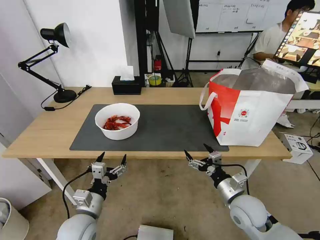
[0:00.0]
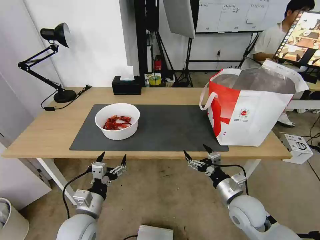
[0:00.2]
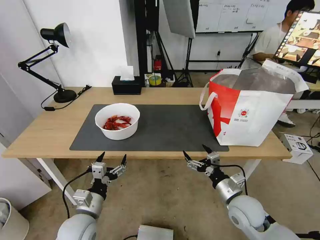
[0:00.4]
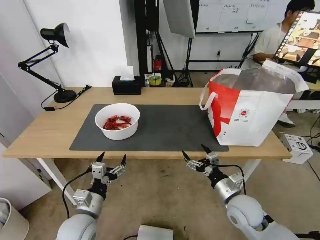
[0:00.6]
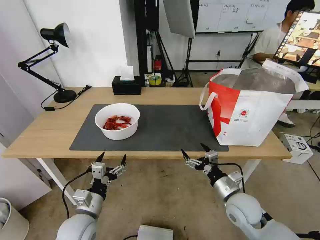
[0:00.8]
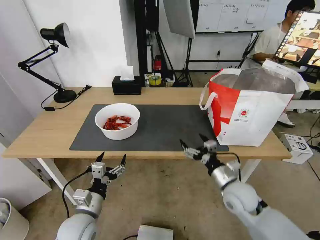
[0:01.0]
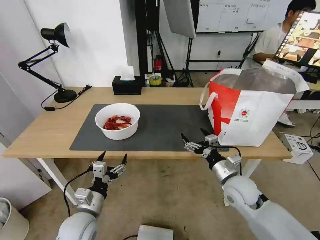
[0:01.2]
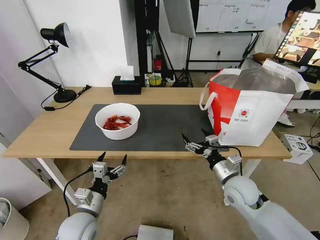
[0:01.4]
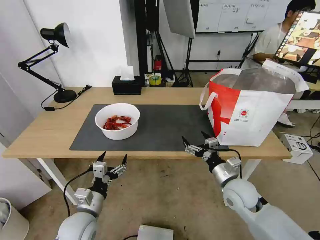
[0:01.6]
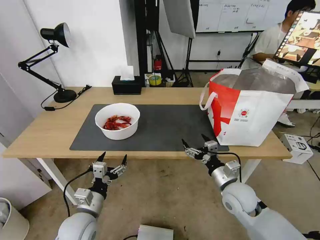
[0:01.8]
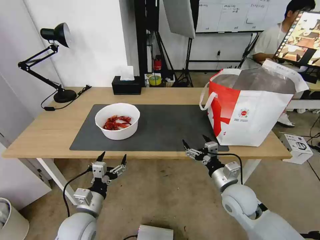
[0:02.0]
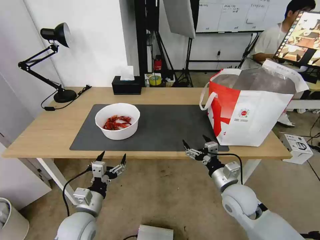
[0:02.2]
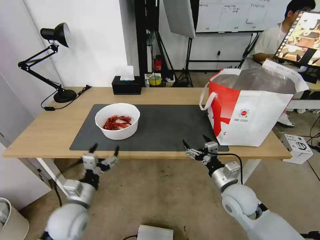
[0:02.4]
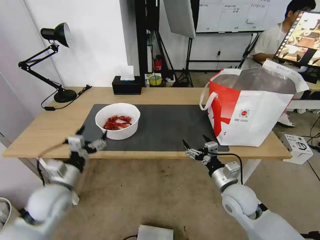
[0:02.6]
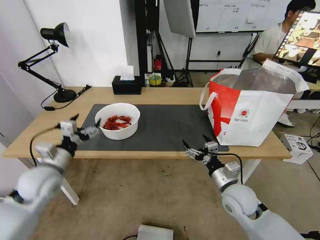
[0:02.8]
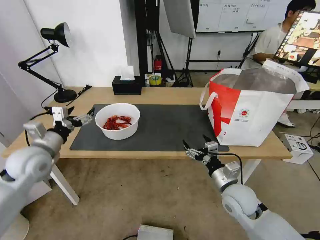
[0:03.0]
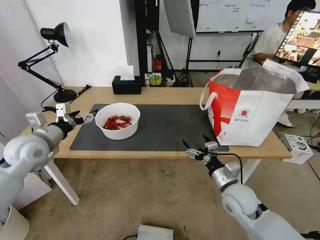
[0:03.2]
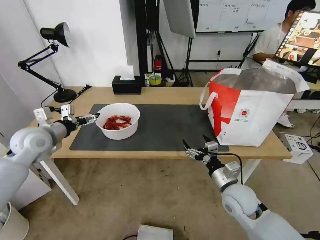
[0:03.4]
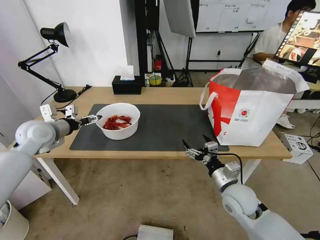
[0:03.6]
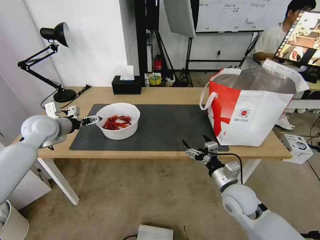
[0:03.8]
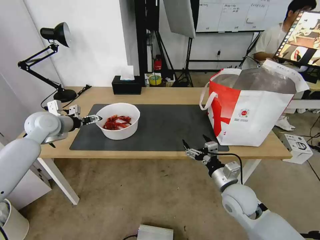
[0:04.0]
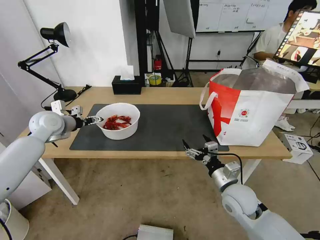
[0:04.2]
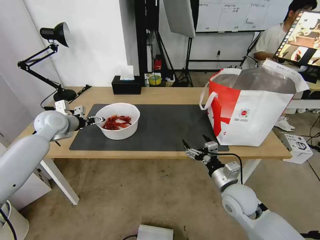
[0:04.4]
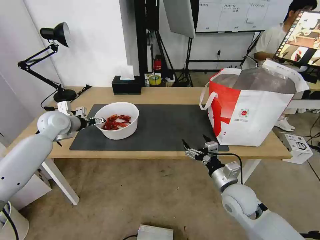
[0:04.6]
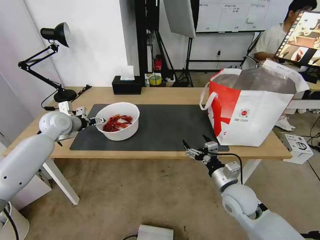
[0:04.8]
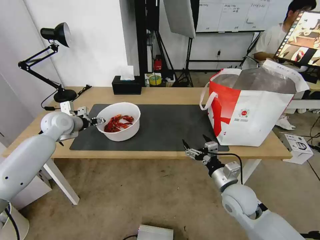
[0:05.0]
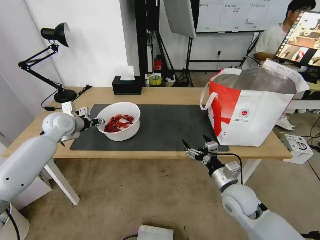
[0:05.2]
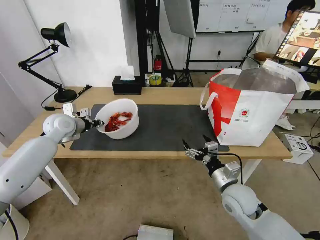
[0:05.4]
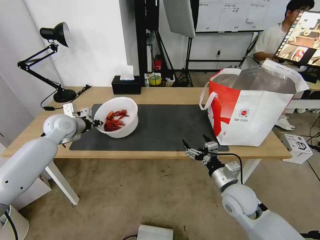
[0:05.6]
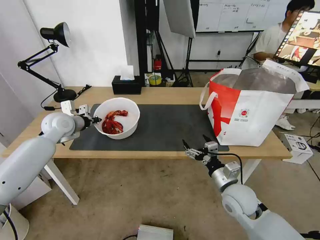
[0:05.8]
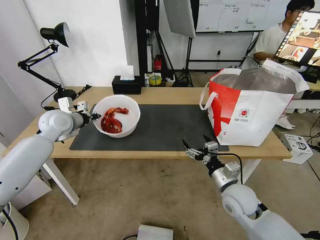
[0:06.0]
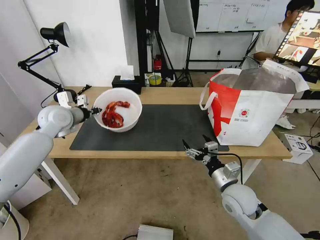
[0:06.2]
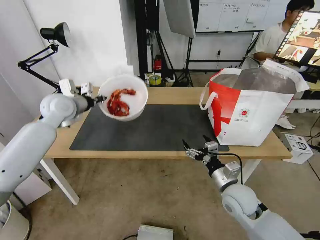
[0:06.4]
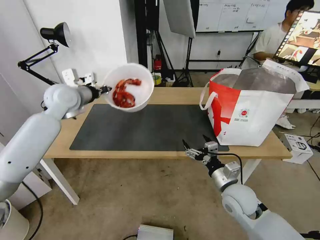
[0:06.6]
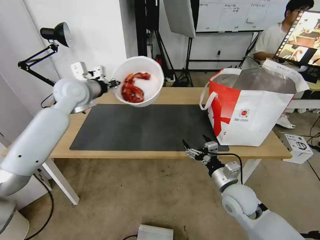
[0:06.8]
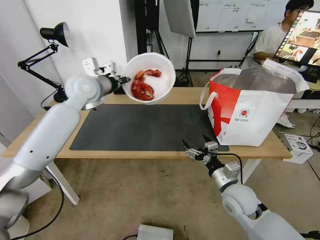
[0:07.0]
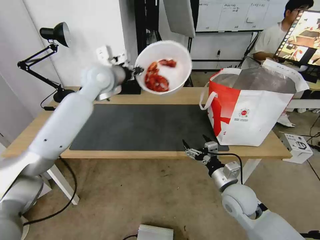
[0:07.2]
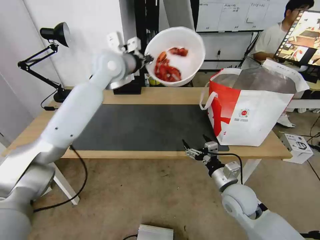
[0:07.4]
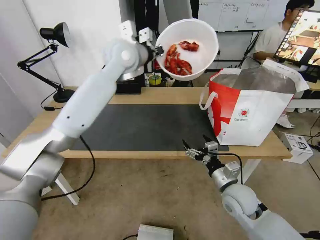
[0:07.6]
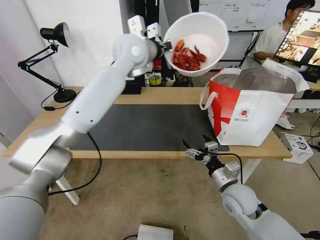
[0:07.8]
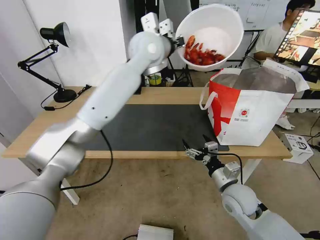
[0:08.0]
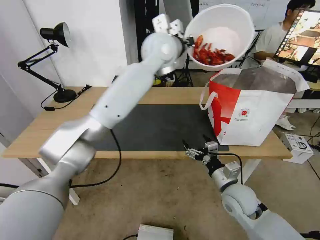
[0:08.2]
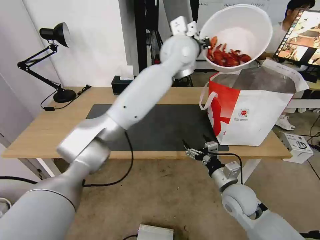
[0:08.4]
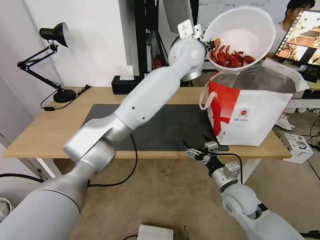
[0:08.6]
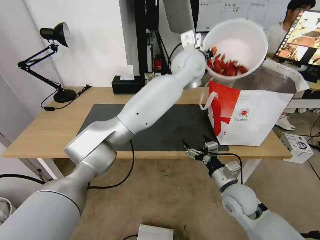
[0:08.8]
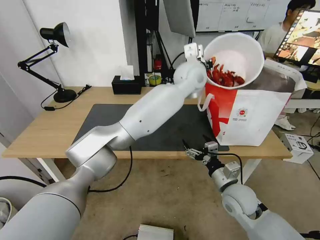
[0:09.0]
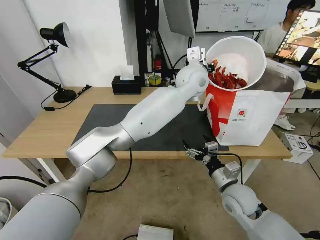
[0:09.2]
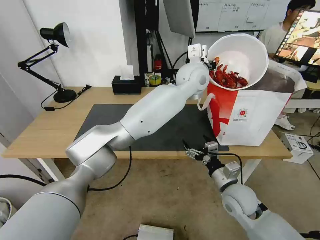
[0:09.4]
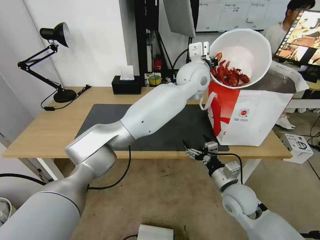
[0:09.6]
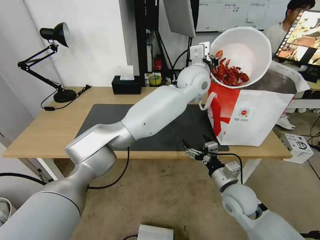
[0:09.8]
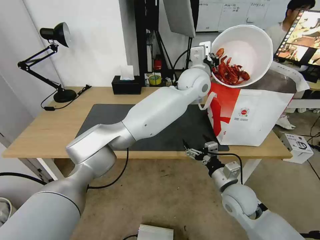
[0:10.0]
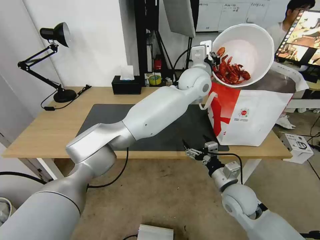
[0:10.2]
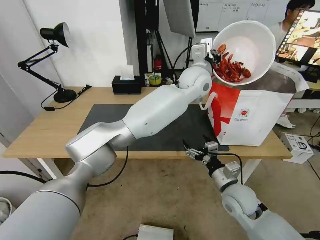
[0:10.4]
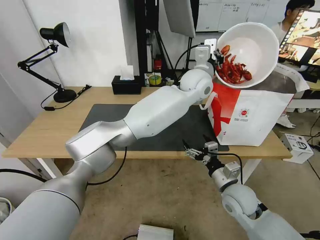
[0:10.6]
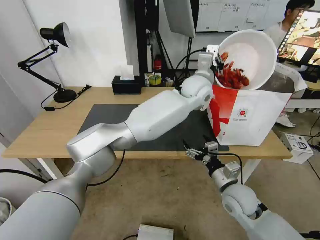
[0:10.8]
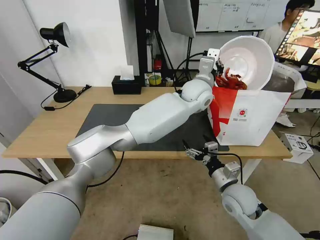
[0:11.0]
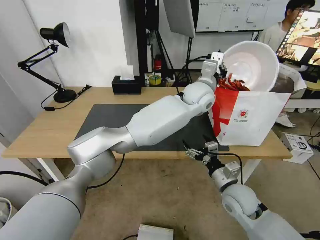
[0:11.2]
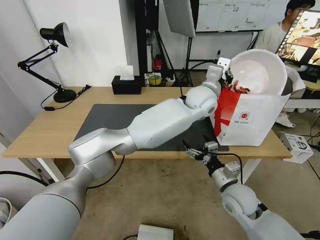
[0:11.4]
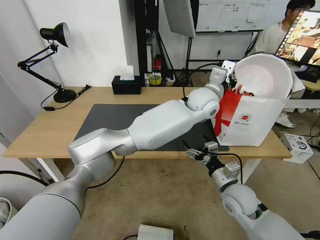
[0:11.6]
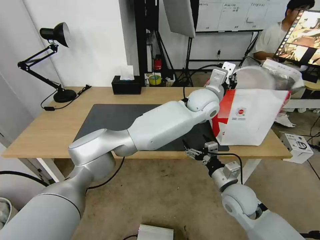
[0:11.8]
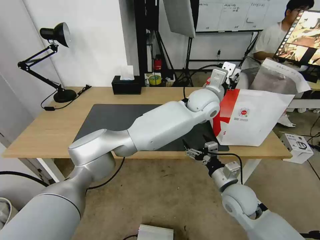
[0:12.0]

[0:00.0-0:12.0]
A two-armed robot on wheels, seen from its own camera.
Task of the whole recording: Pick up the trash from the table and place it into the takeout bag.
0:00.0 to 0:01.6: The grippers make only small movements.
0:01.6 to 0:03.0: The left gripper goes approximately 25 cm upward, to the left and forward.
0:03.0 to 0:04.4: The left gripper shifts approximately 15 cm forward.
0:04.4 to 0:06.0: The left gripper closes up.
0:06.0 to 0:07.6: The left gripper heads to the right and upward, covering approximately 30 cm.
0:07.6 to 0:09.0: The left gripper is displaced to the right by some 20 cm.
0:09.0 to 0:10.4: The grippers move only a little.
0:10.4 to 0:12.0: The left gripper moves downward, some 5 cm, and opens its fingers.

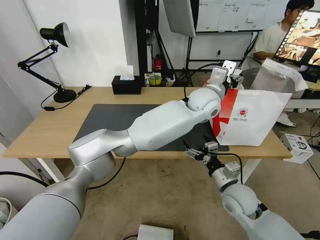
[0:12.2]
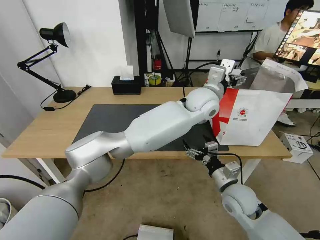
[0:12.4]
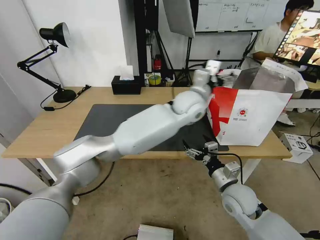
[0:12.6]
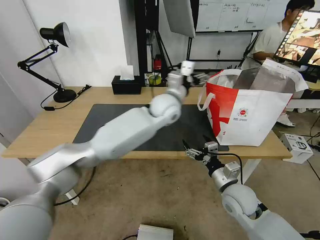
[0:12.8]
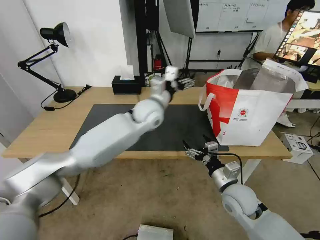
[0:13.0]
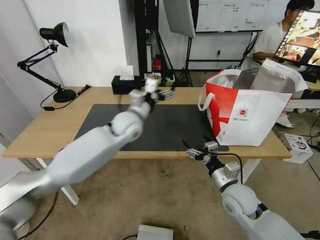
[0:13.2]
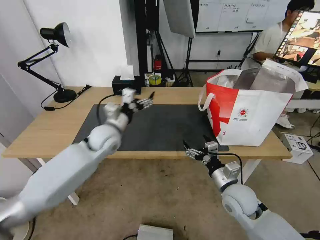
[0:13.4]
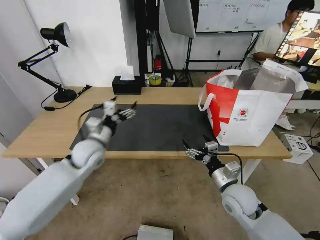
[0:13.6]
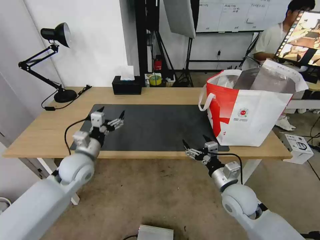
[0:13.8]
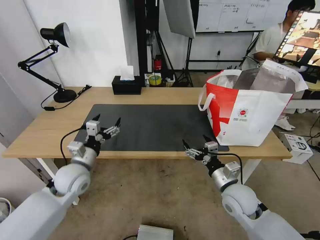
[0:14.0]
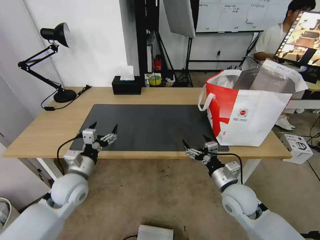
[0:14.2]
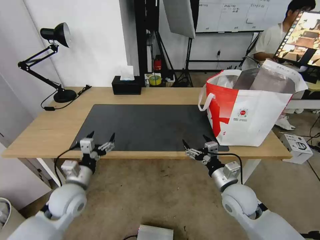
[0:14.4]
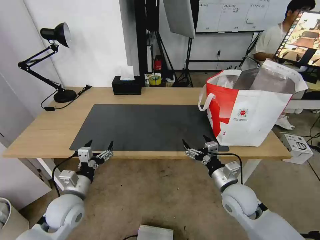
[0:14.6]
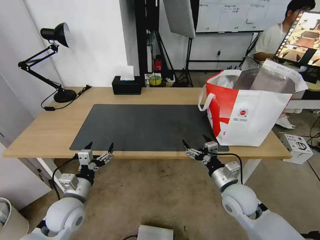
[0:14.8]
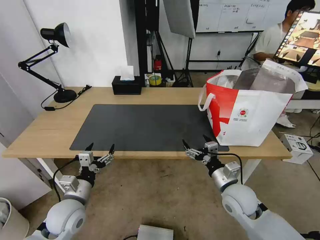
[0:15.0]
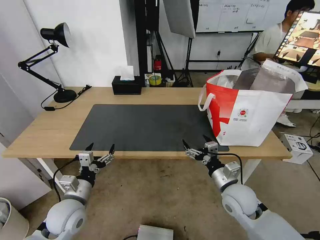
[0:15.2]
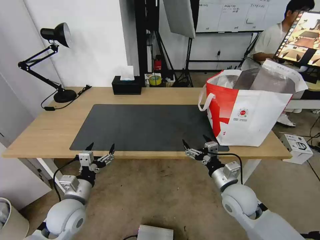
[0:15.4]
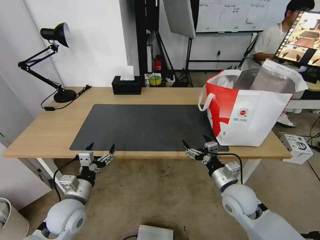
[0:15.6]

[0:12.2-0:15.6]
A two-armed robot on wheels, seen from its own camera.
Task of the whole recording: Pick up the trash from the table and place it into the takeout bag.
0:12.2 to 0:13.8: The left gripper heads to the left and downward, covering approximately 40 cm.
0:13.8 to 0:15.6: The left gripper goes approximately 15 cm backward and downward.

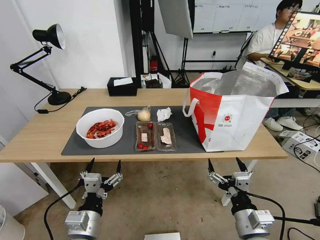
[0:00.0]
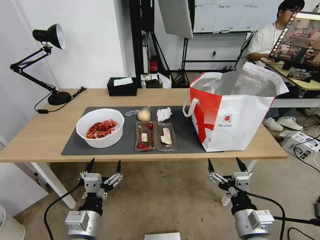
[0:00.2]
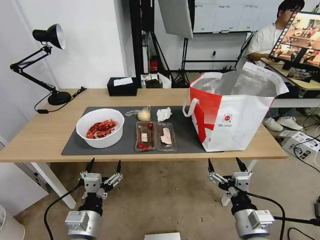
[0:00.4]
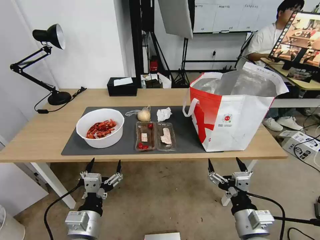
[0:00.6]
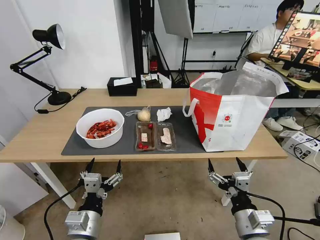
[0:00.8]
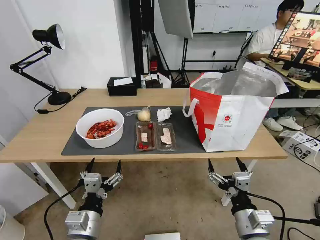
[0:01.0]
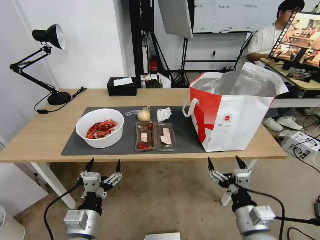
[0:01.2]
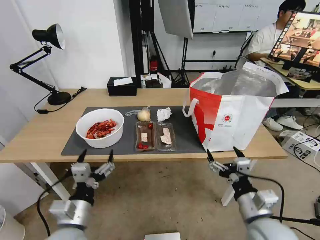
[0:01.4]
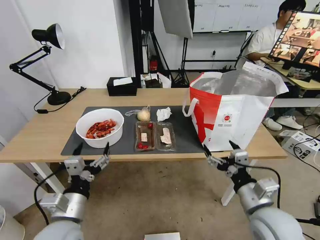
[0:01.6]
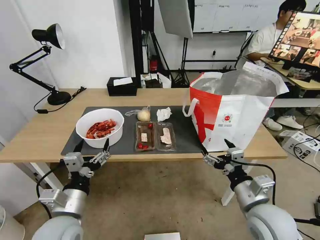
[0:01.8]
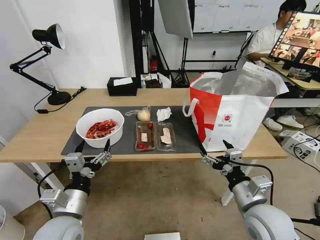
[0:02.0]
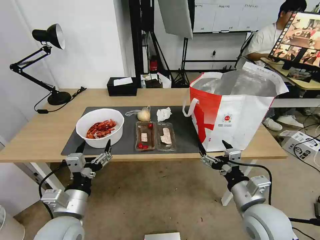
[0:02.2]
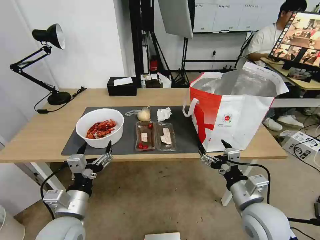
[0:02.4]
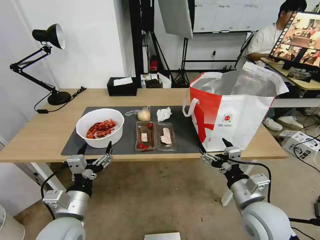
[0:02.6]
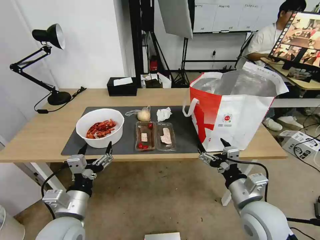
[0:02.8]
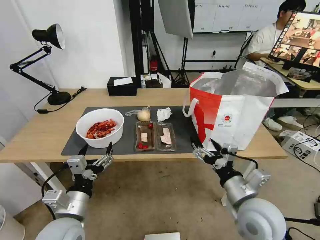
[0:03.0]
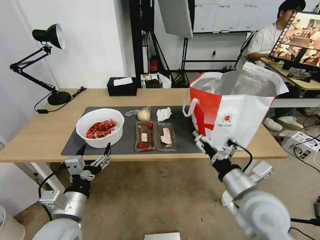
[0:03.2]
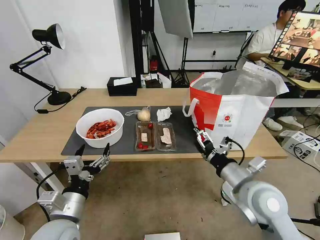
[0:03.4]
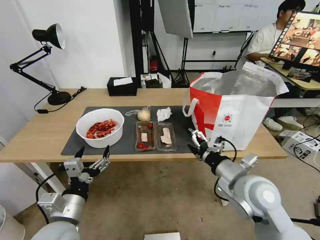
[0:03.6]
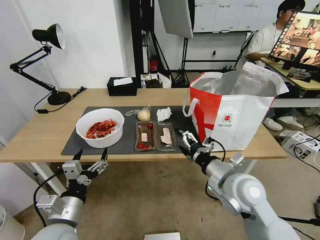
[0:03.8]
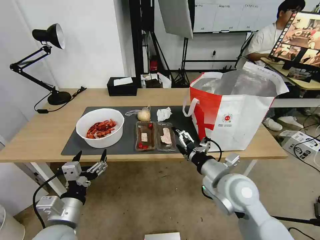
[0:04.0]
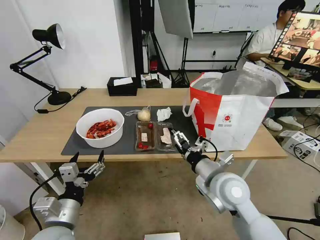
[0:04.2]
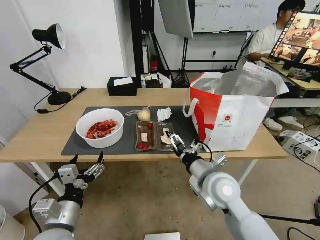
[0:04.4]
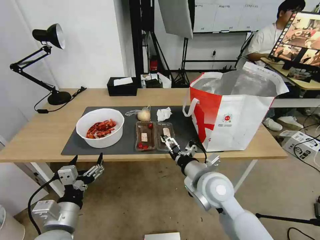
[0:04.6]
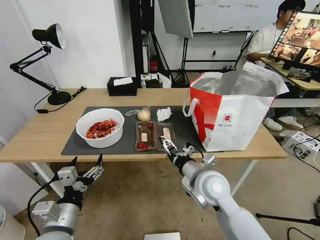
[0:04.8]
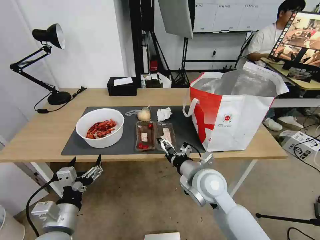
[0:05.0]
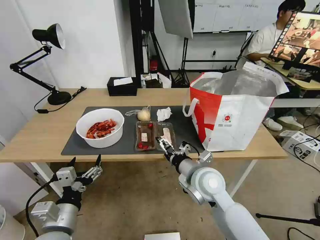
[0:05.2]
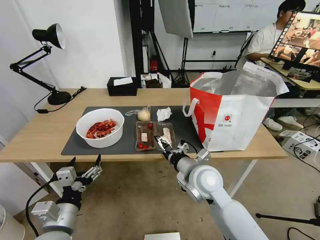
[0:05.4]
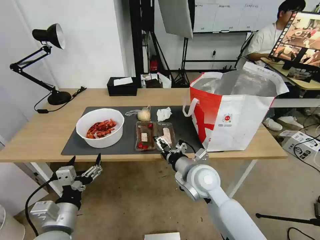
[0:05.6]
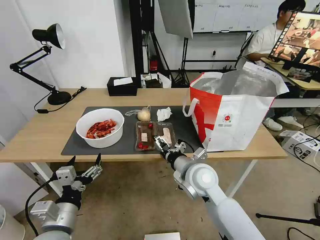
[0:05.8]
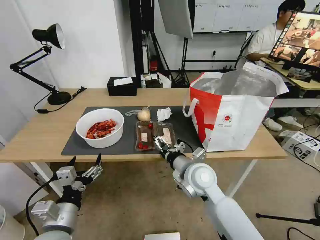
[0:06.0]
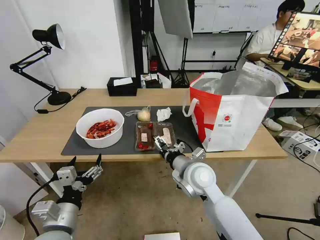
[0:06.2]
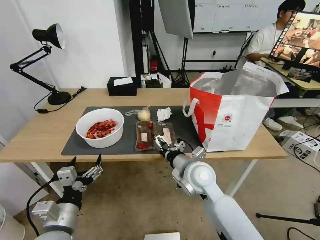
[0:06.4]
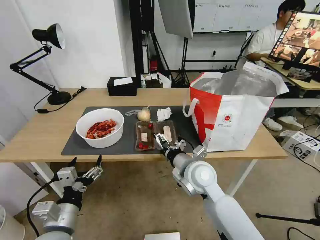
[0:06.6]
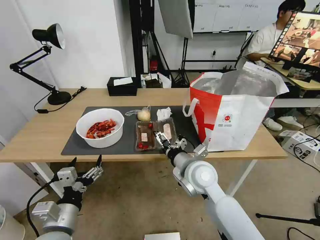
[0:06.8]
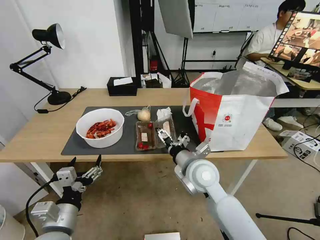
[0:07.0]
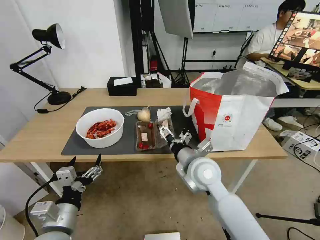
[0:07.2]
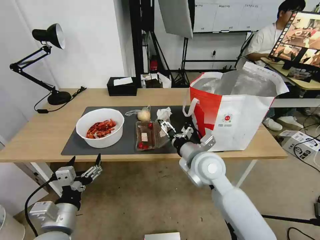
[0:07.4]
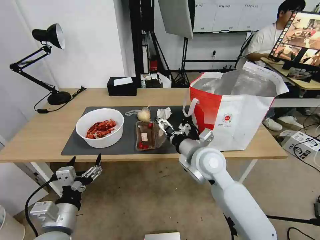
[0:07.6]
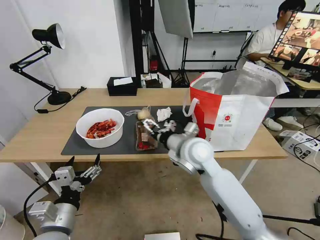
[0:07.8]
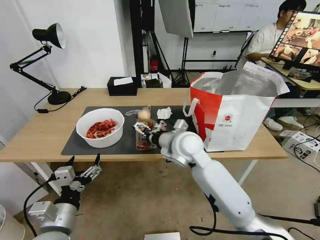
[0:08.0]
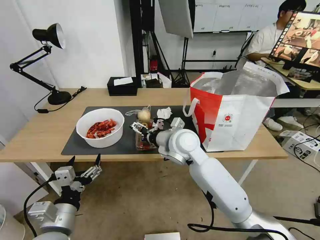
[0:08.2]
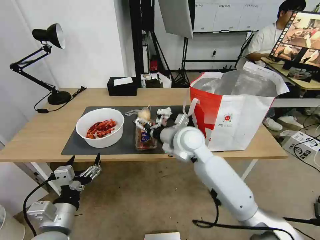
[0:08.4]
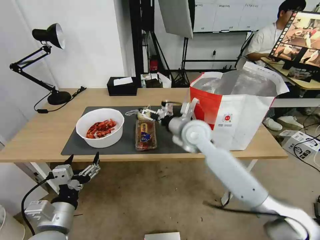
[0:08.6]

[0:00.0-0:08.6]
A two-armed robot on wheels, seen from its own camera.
Task of the whole recording: Pick up the trash from the table and place it into the takeout bag.
0:01.4 to 0:02.8: The grippers make only small movements.
0:02.8 to 0:04.4: The right gripper shifts roughly 10 cm to the left and forward.
0:04.4 to 0:05.8: The right gripper moves approximately 5 cm.
0:05.8 to 0:07.2: The grippers stay close to where they were, moving slightly.
0:07.2 to 0:08.6: The right gripper shifts approximately 10 cm forward.
